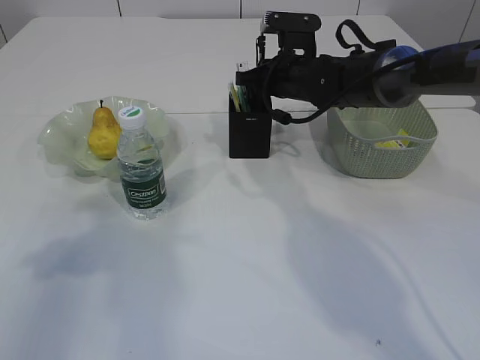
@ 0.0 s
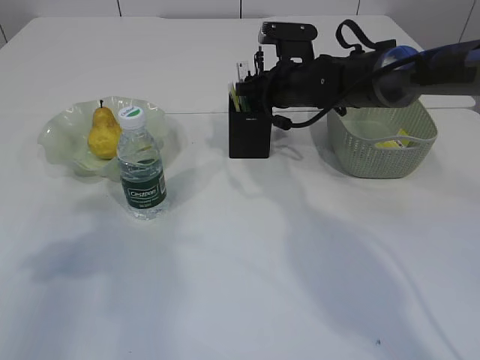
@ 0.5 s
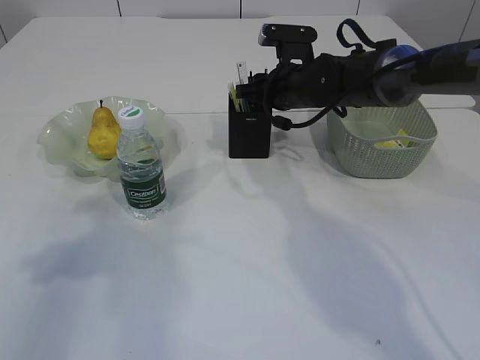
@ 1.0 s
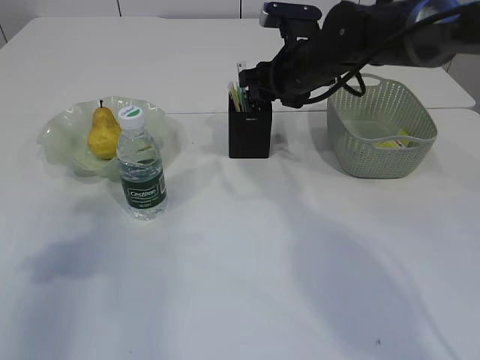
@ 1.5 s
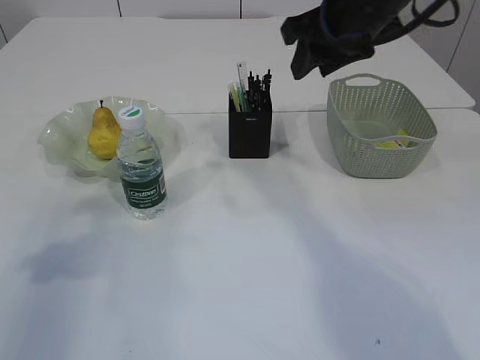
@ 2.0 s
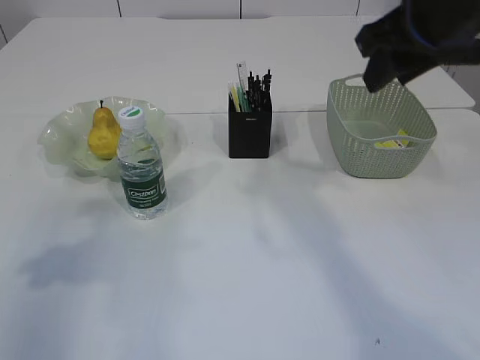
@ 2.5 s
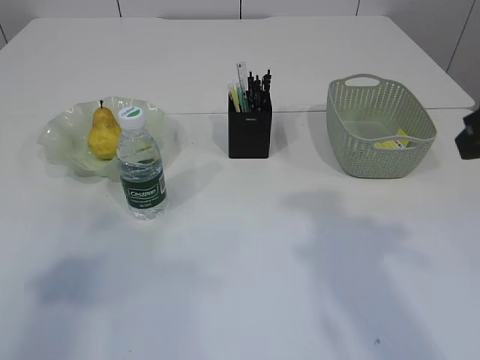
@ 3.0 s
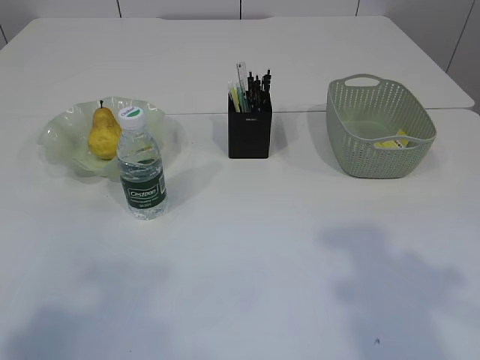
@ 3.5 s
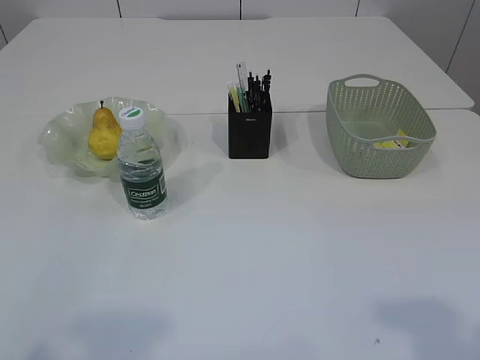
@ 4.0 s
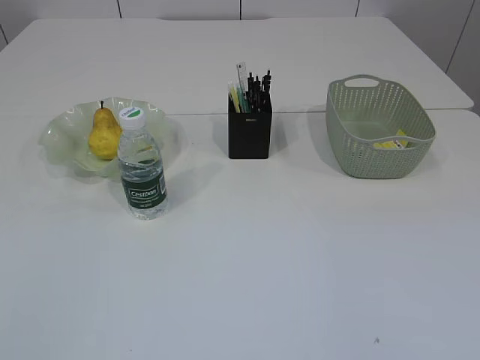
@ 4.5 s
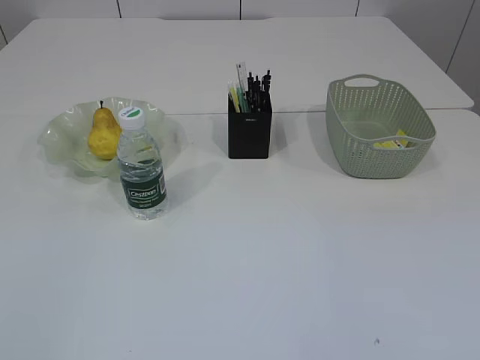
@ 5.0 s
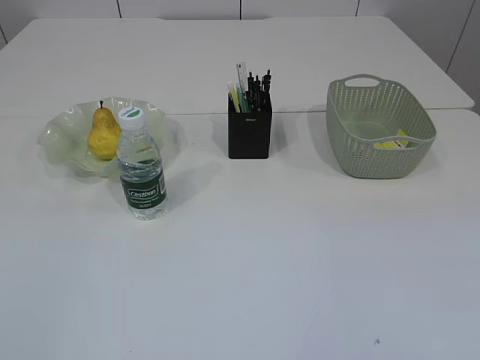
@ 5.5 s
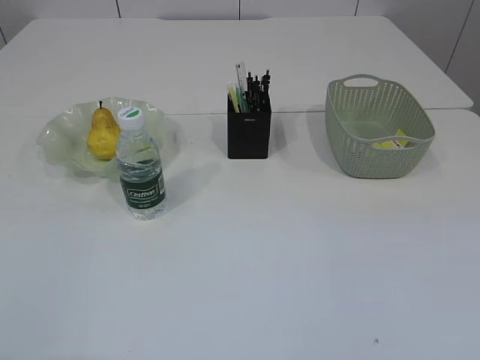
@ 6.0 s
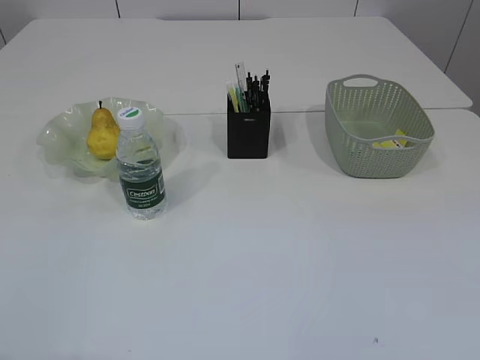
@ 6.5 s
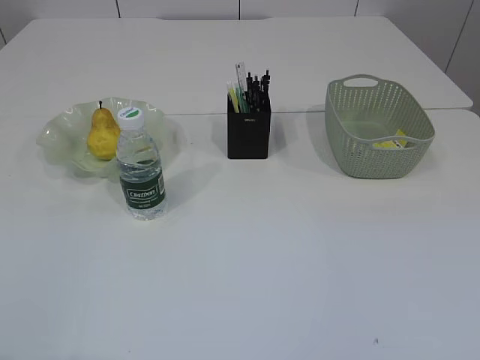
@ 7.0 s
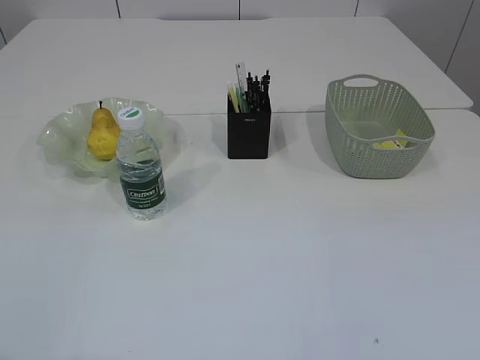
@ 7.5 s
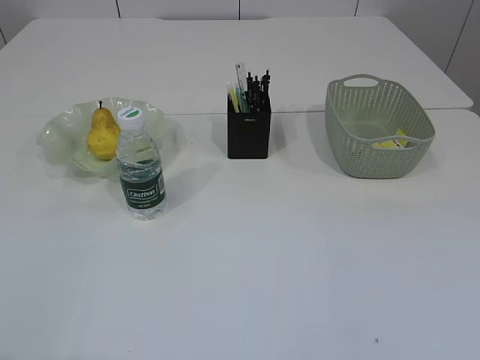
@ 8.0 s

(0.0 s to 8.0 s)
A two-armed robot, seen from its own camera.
Step, 0.0 s - 2.0 s: Place the pen into the pen holder.
0.0 s - 2.0 s: The right gripper goes some 20 cm upward and backward, and opens up.
2.0 s - 4.0 s: The left gripper shifts about 20 cm backward. Meanwhile the right gripper travels backward and to the right by approximately 35 cm.
4.0 s - 6.0 s: The left gripper changes place by some 5 cm, and opens.
